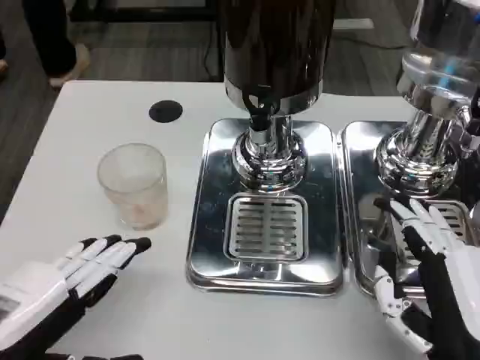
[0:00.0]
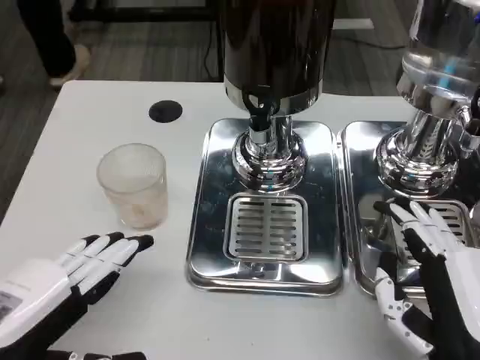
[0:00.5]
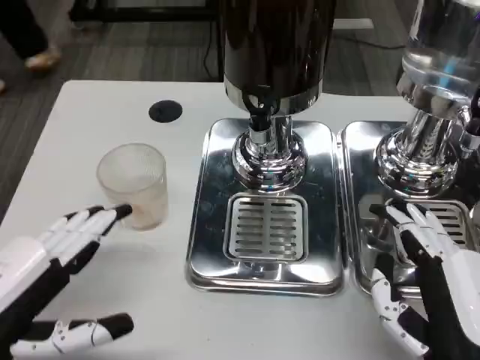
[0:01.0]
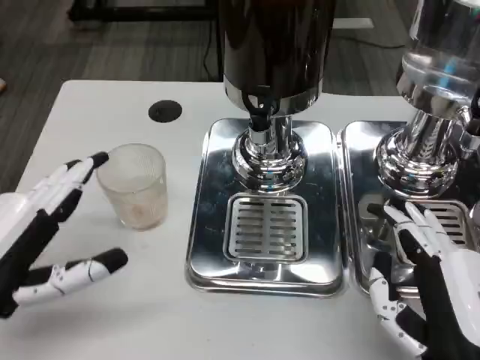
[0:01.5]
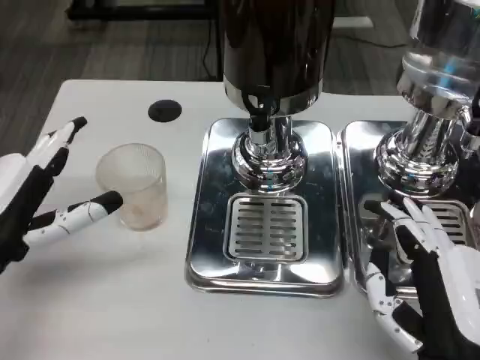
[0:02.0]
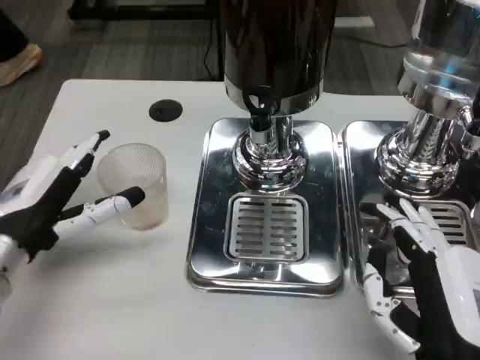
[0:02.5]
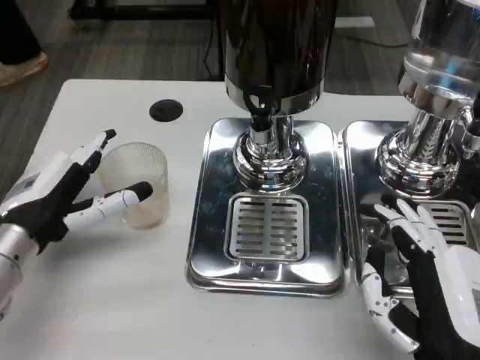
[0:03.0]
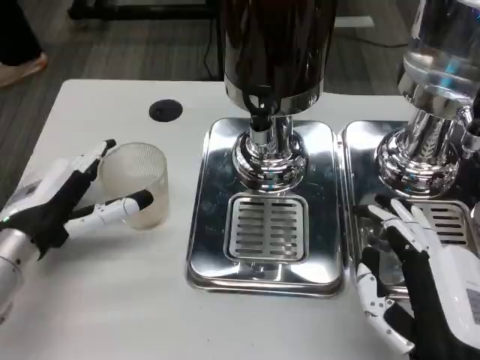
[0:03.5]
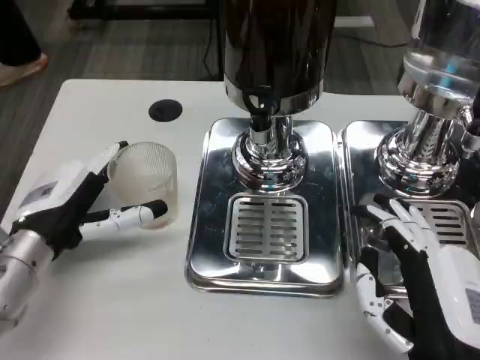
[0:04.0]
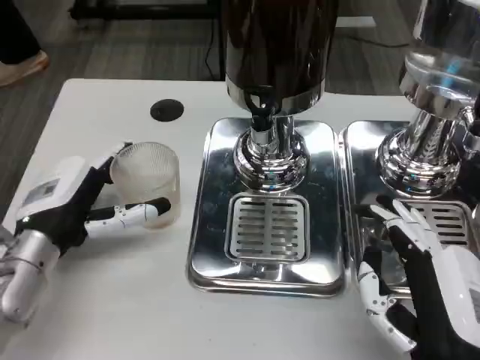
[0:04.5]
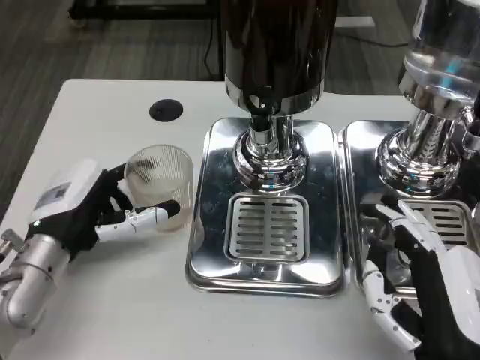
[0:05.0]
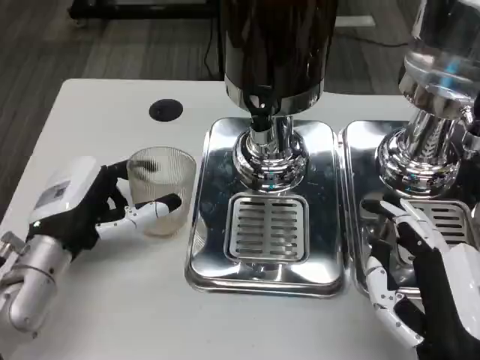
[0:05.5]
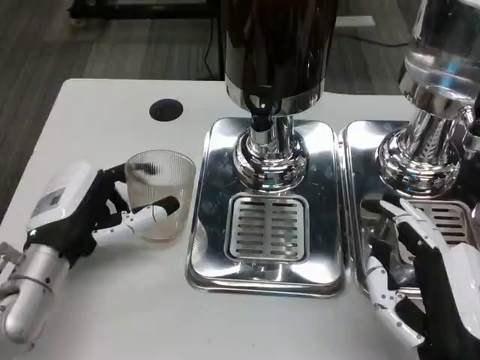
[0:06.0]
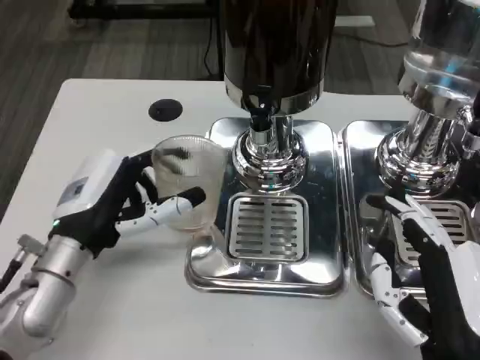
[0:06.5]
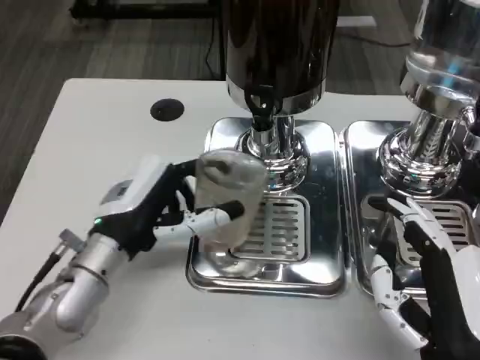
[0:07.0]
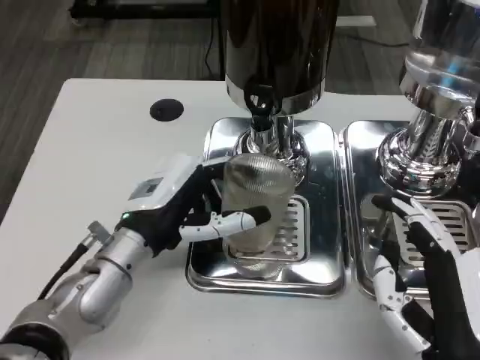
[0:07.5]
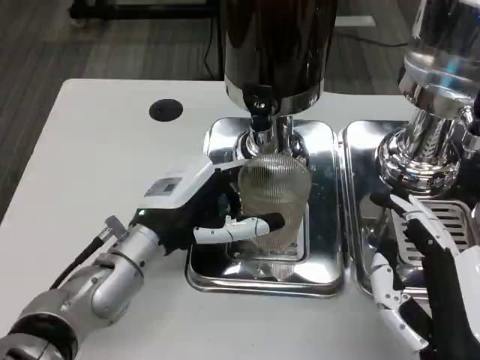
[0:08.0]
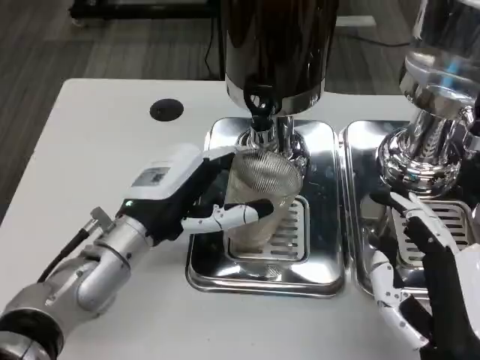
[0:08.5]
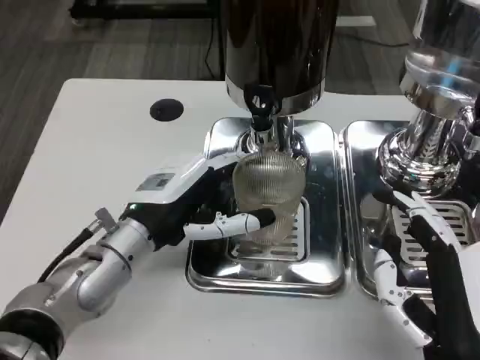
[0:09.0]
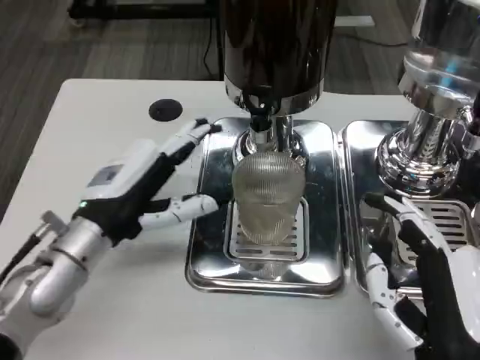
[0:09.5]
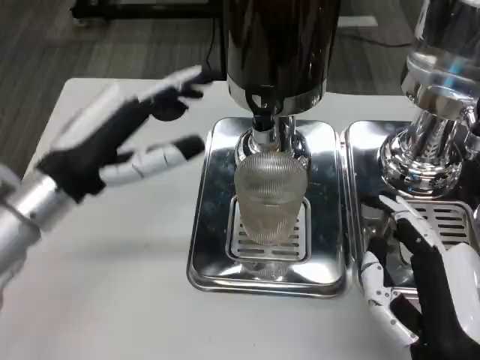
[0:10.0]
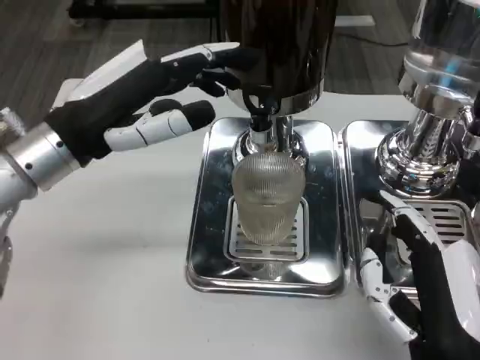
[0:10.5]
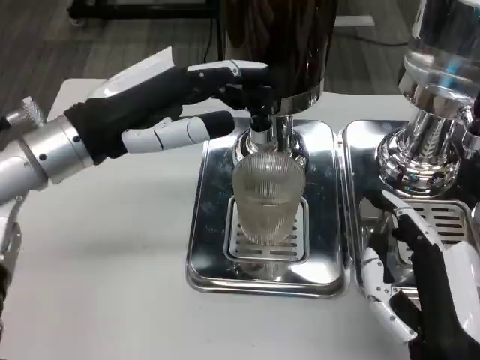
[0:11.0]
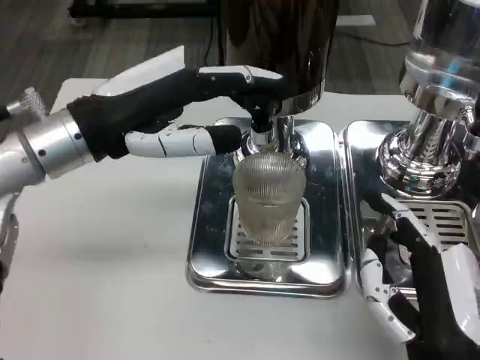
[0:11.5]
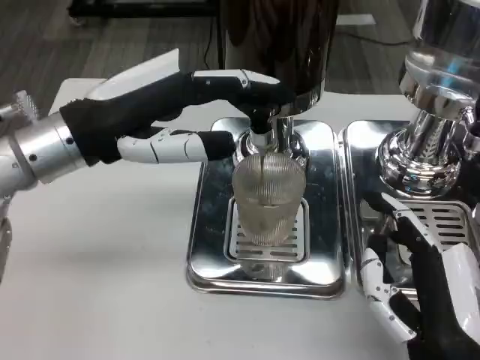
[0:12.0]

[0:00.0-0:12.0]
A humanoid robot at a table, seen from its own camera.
Task of the whole recording: Grasp the cup under the faucet to collect the drink, then remove the cup.
0:00.0 to 0:02.0: The left hand is displaced forward by some 10 cm.
0:02.0 to 0:04.0: The left hand shifts by roughly 5 cm.
0:06.0 to 0:08.0: The left hand moves to the right, roughly 10 cm.
0:08.0 to 0:10.0: The left hand moves upward and to the left, about 10 cm.
0:10.0 to 0:12.0: The left hand goes some 5 cm upward.

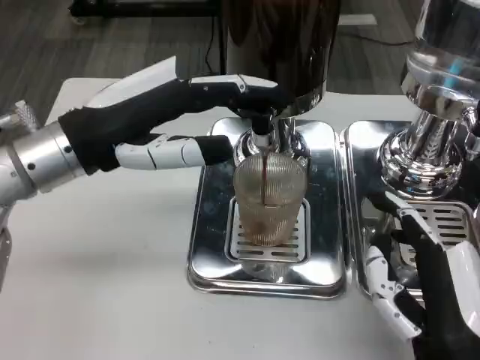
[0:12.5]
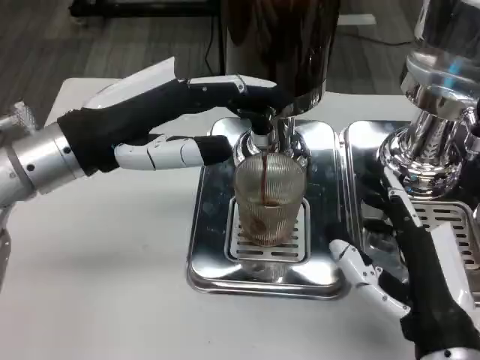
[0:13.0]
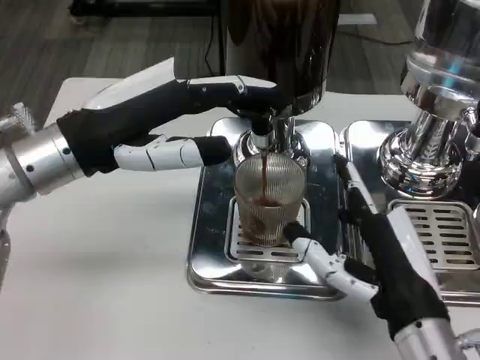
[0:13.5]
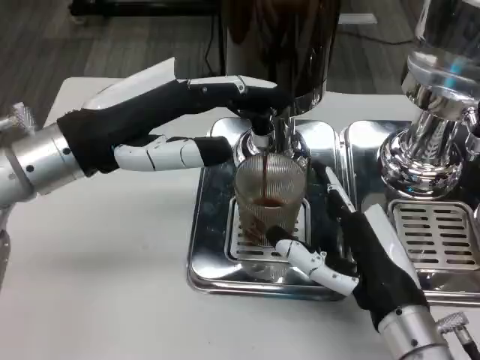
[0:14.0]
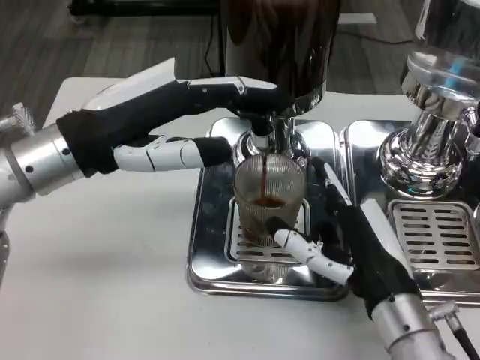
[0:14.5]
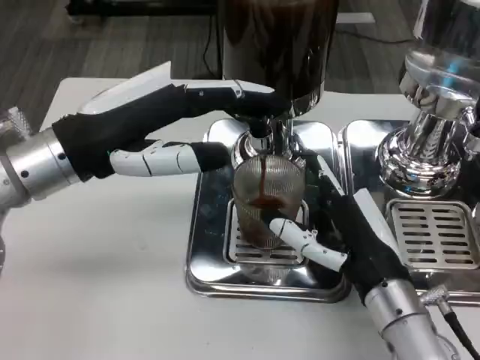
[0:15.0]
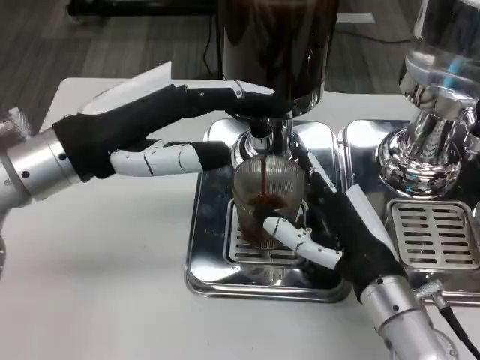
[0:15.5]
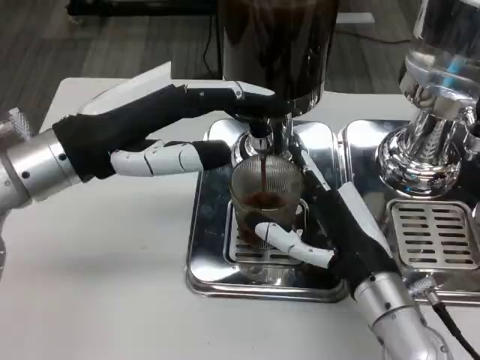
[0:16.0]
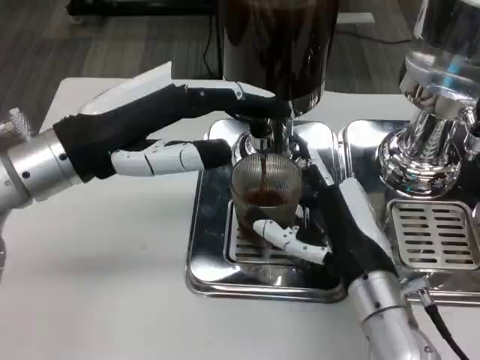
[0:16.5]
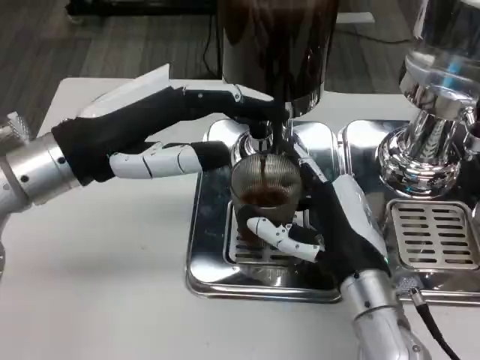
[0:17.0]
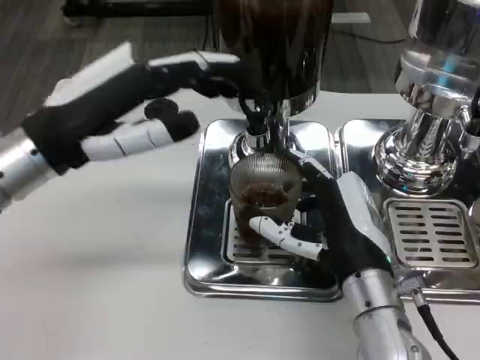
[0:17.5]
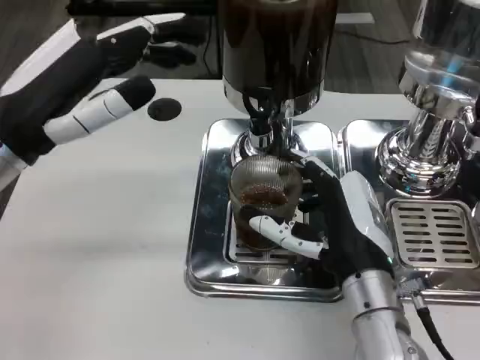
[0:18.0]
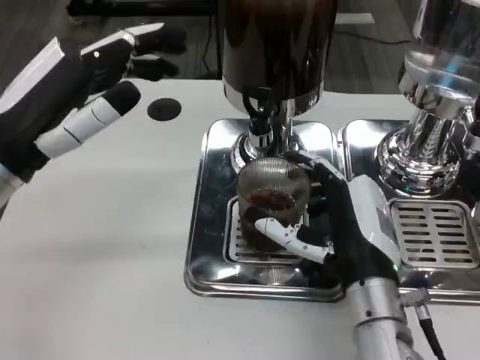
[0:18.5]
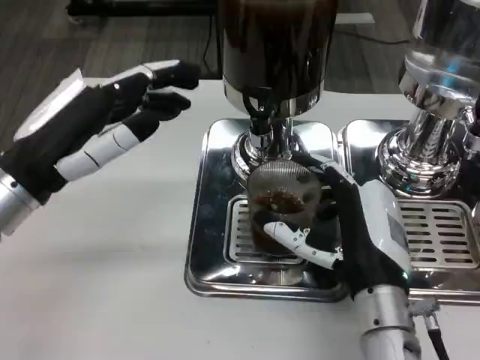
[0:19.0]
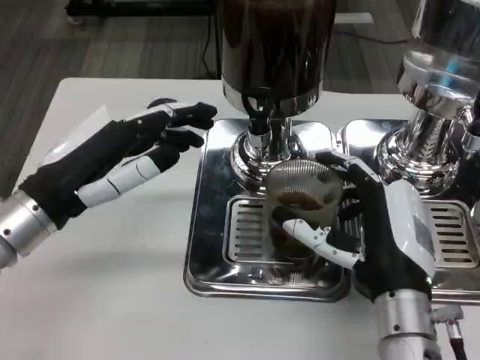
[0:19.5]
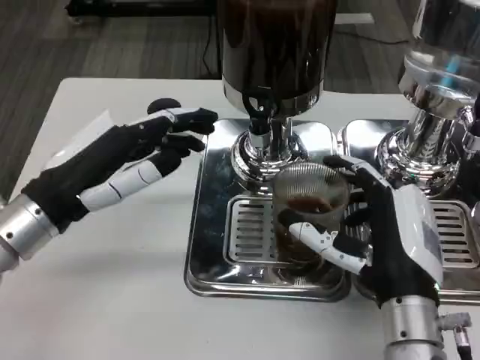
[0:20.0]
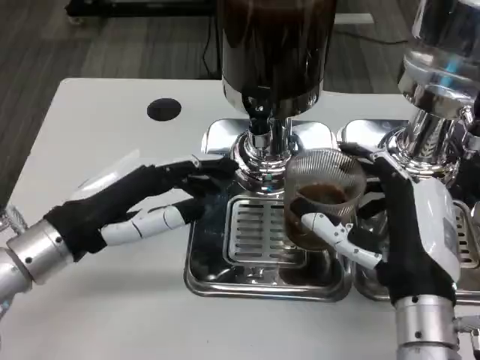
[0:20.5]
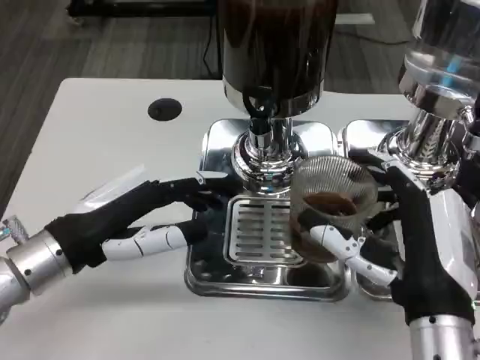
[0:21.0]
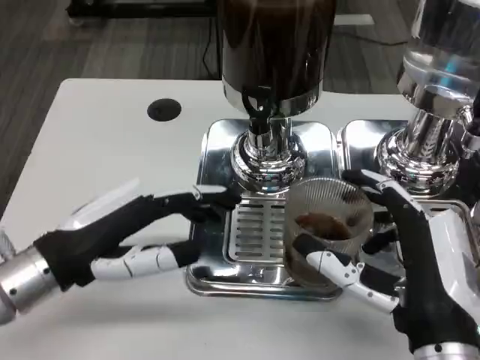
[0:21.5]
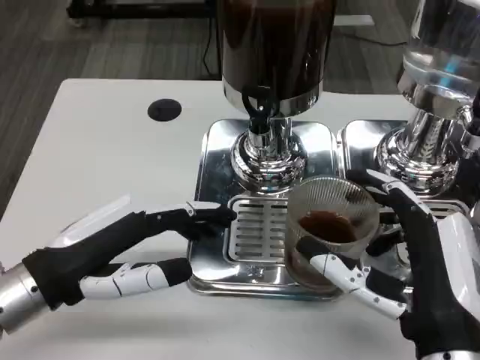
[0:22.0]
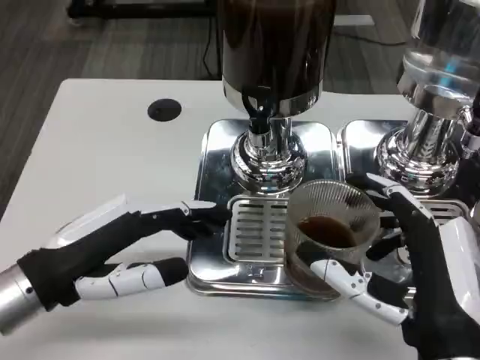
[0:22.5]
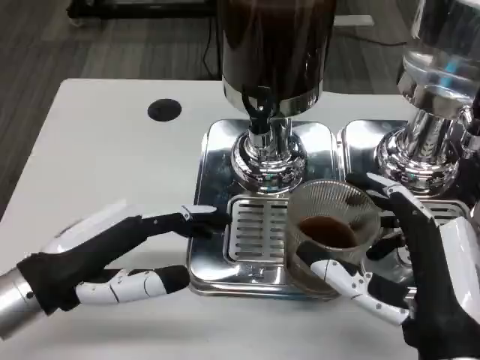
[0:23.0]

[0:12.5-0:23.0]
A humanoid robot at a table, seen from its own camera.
Task of the whole recording: Grasp the cup under the faucet to collect the drink, then remove the cup.
0:12.5 to 0:14.5: The right hand goes roughly 10 cm forward.
0:16.5 to 0:19.0: The left hand moves approximately 5 cm.
0:19.0 to 0:21.0: The right hand moves roughly 5 cm.
